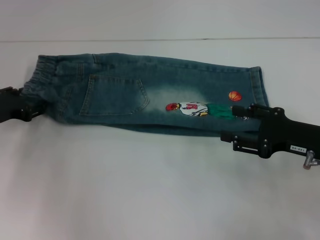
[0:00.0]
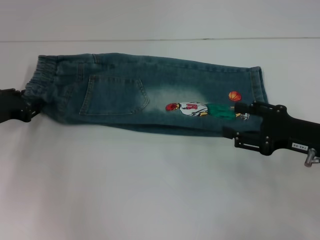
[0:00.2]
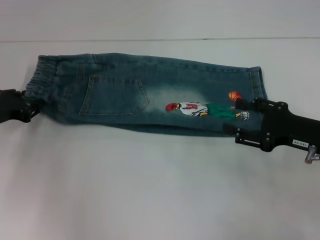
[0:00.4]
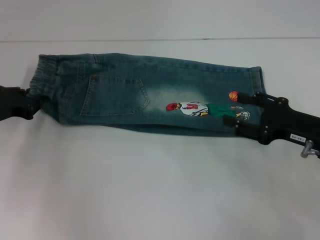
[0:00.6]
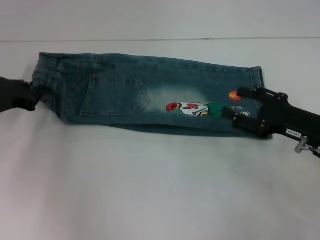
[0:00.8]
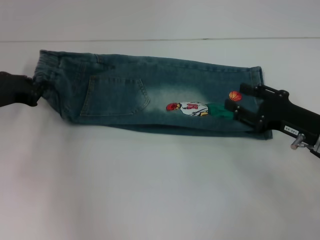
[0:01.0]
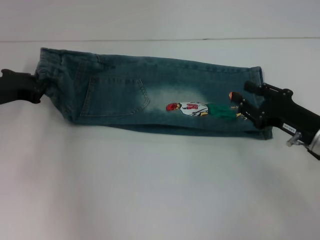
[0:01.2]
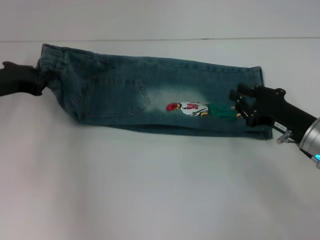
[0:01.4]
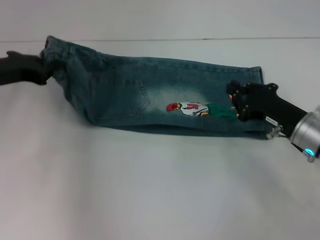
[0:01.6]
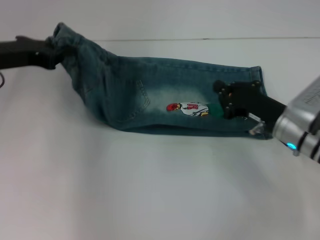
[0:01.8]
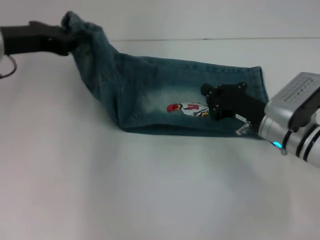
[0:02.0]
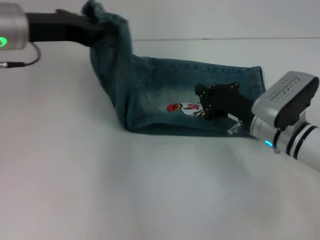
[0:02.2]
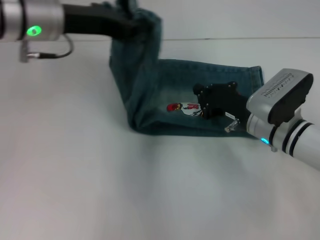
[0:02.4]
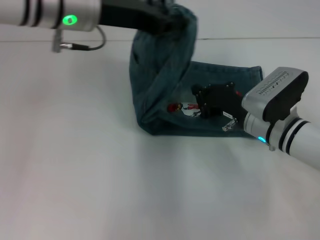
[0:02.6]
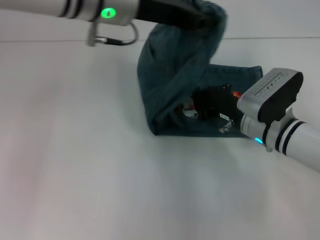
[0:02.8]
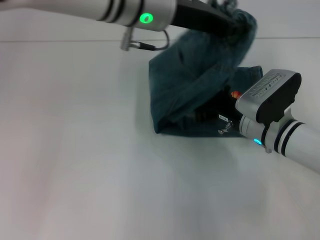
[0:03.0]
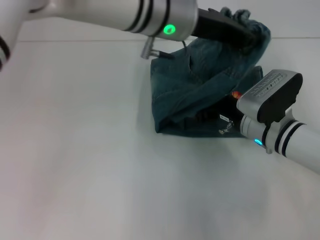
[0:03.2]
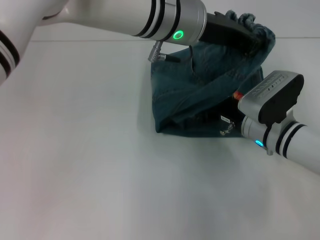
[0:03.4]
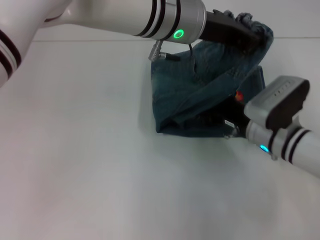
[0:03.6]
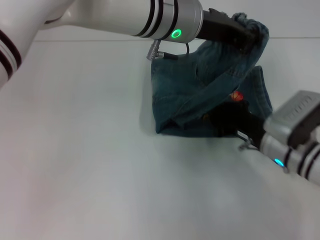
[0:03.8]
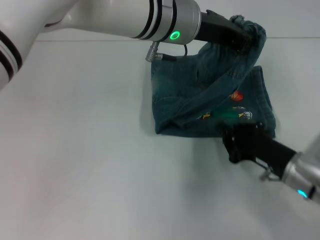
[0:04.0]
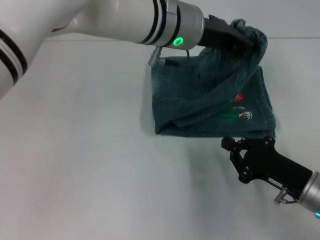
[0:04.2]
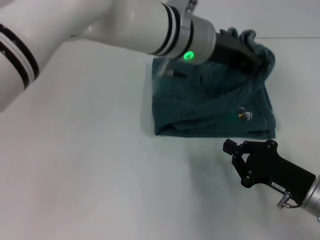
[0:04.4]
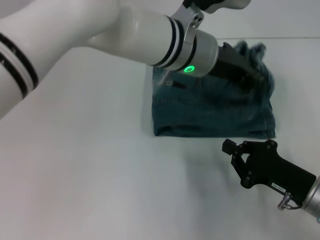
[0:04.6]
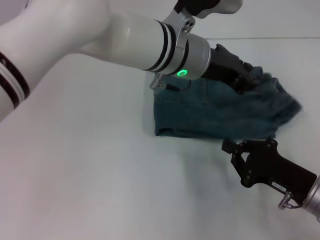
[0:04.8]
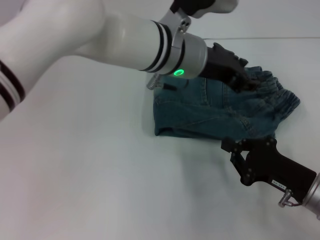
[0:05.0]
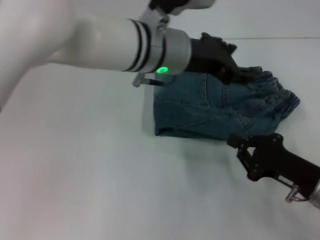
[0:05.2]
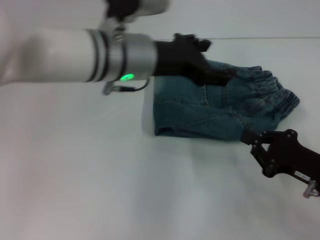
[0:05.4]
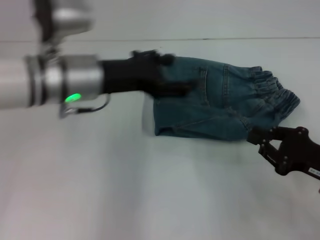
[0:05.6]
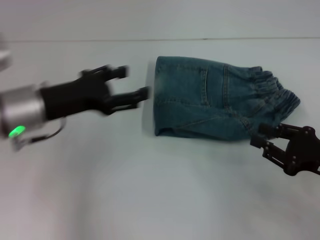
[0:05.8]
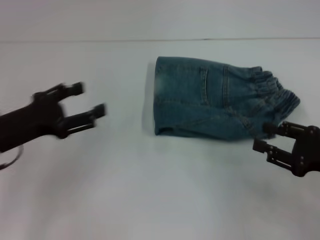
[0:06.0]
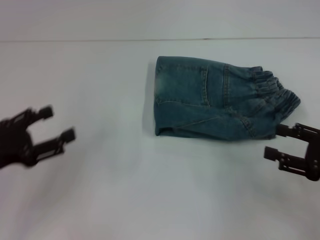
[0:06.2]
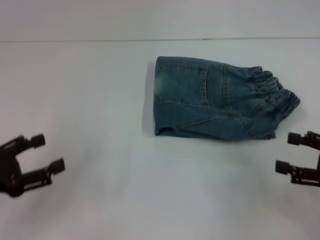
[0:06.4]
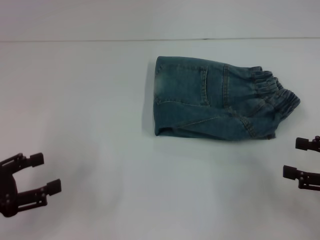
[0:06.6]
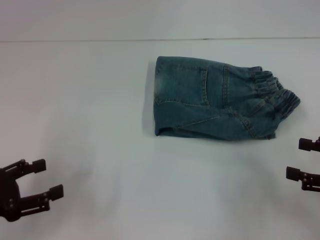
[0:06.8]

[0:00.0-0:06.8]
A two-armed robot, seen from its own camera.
Step, 0:00.6 to 0:03.2: Press the middle of the pants with your right hand.
Step, 0:03.6 to 0:04.8: Fold to the right with your left hand.
0:00.0 to 0:01.4: The left gripper moves upward, some 5 cm, and closes its fingers. The right gripper closes up.
0:01.4 to 0:02.8: The right gripper travels to the left by some 10 cm, and closes its fingers, while the left gripper moves to the right and upward, roughly 25 cm.
0:02.8 to 0:04.0: The left gripper is displaced to the right by some 5 cm. The right gripper travels backward and to the right by approximately 10 cm.
0:04.0 to 0:05.4: The left gripper shifts approximately 5 cm to the left, and opens up; the right gripper changes place by some 5 cm.
0:05.4 to 0:06.8: The right gripper heads to the right and upward, covering roughly 10 cm, and opens up; the left gripper shifts about 35 cm to the left, backward and downward.
